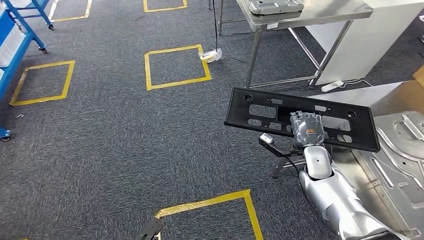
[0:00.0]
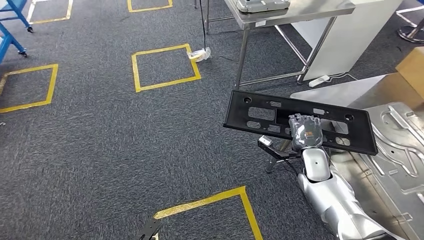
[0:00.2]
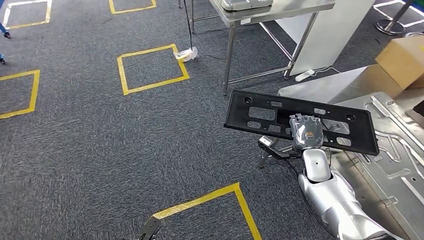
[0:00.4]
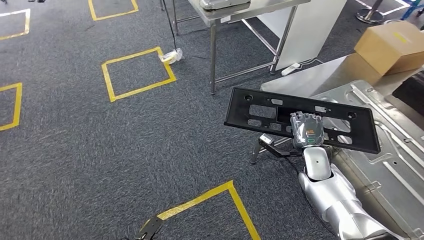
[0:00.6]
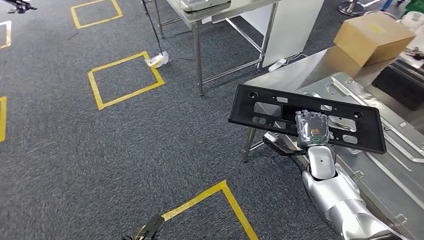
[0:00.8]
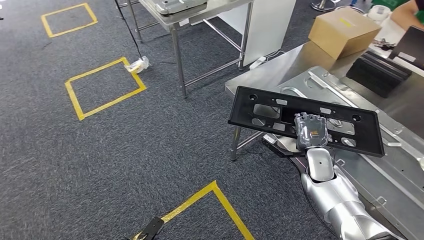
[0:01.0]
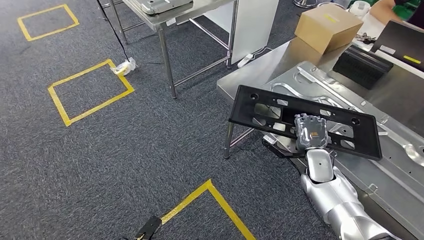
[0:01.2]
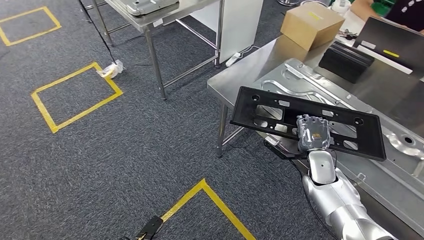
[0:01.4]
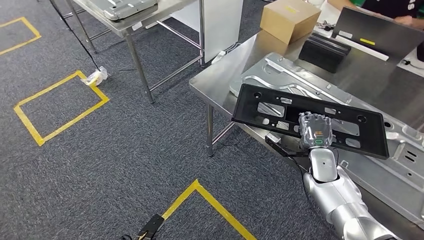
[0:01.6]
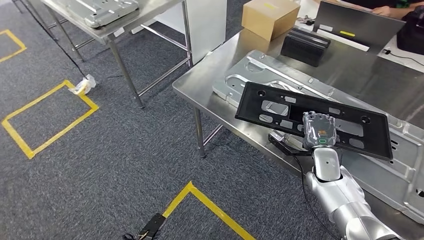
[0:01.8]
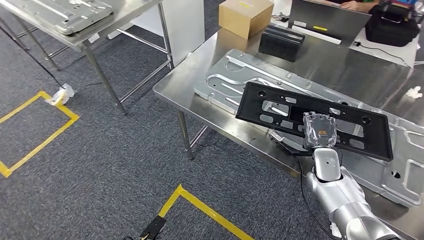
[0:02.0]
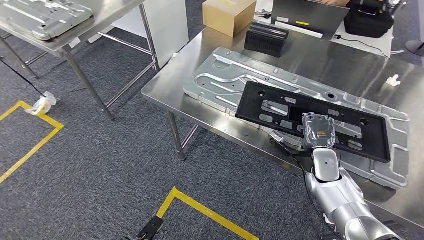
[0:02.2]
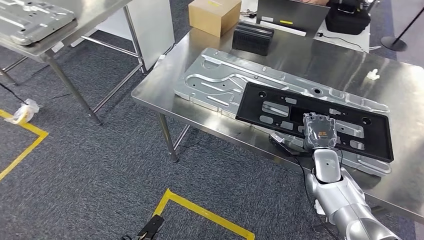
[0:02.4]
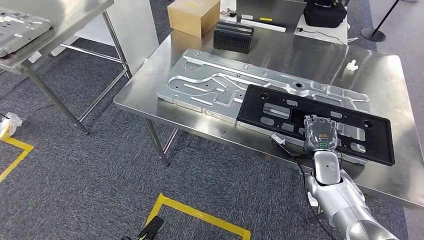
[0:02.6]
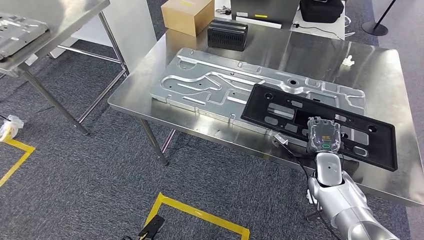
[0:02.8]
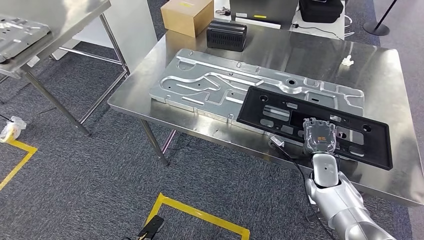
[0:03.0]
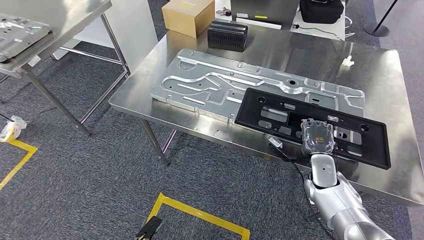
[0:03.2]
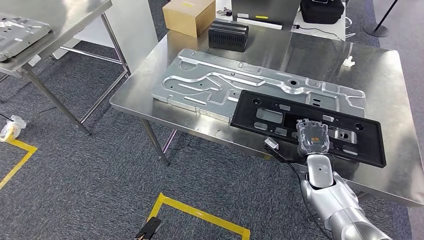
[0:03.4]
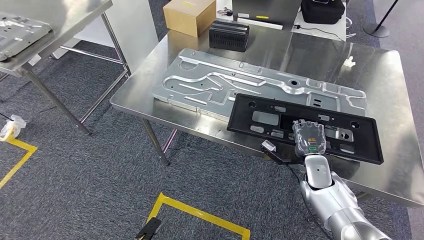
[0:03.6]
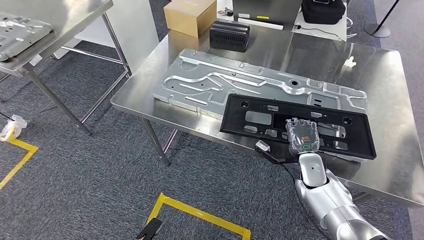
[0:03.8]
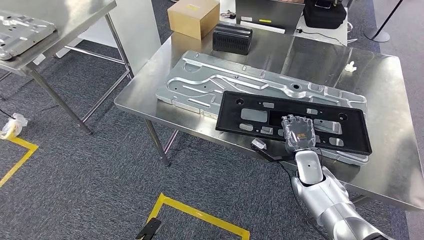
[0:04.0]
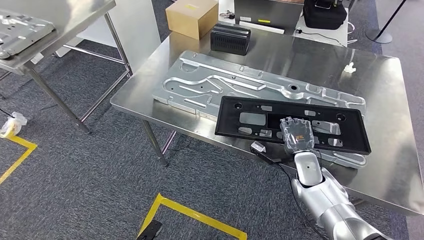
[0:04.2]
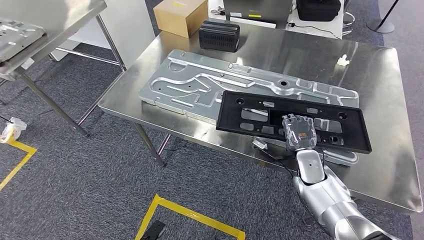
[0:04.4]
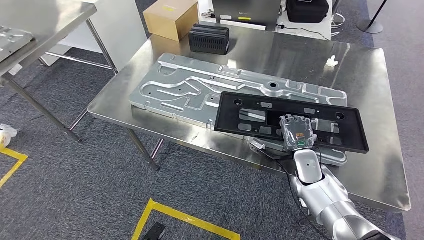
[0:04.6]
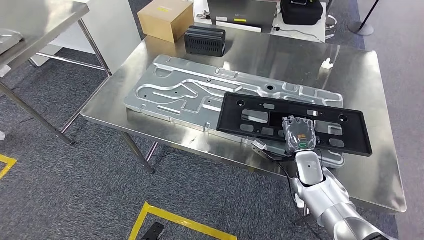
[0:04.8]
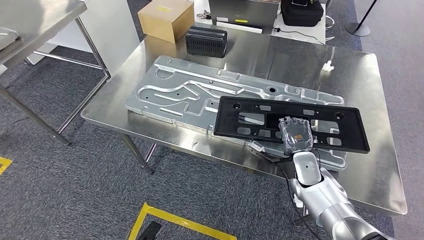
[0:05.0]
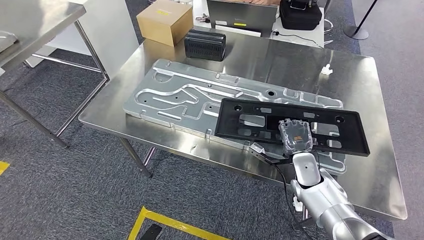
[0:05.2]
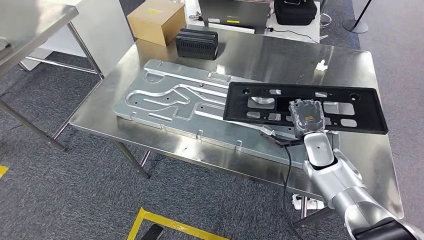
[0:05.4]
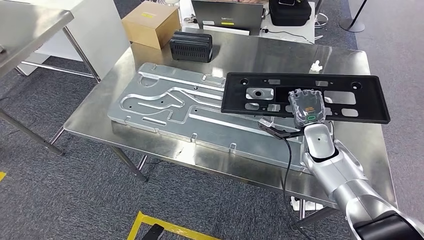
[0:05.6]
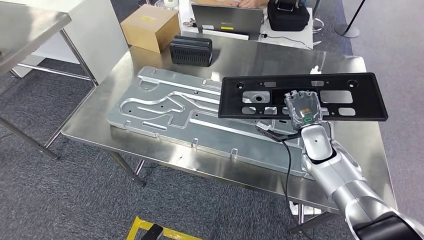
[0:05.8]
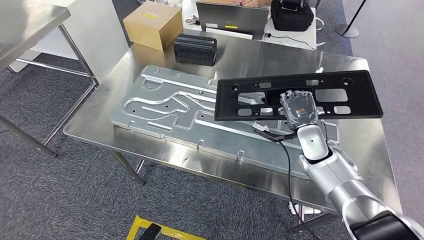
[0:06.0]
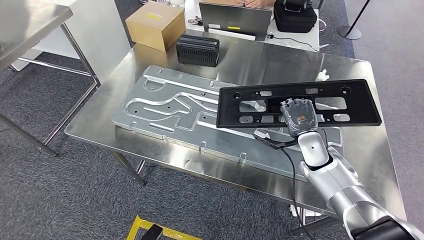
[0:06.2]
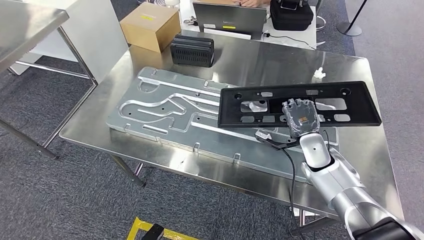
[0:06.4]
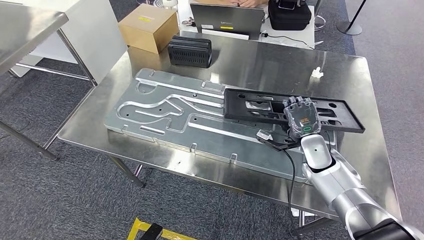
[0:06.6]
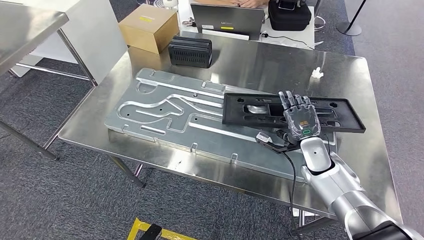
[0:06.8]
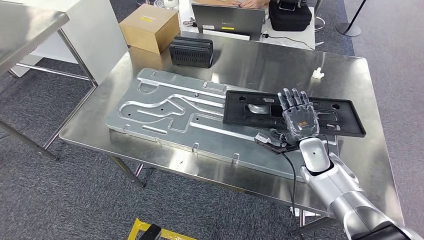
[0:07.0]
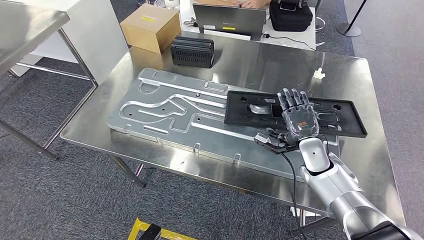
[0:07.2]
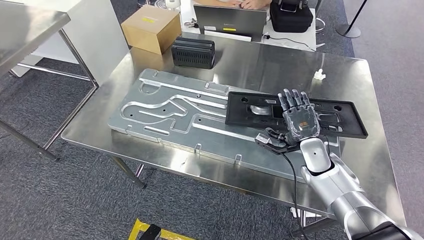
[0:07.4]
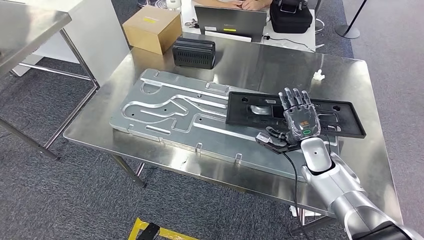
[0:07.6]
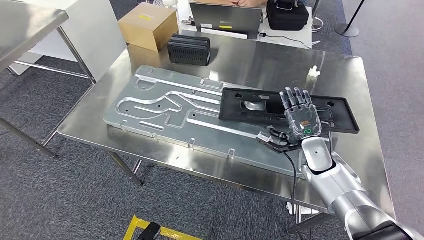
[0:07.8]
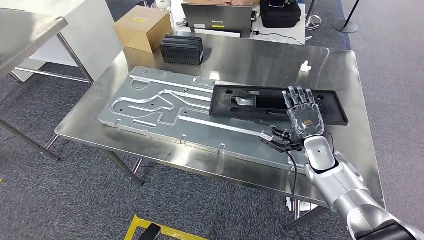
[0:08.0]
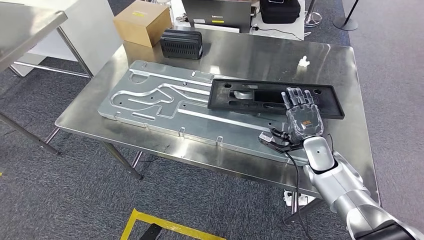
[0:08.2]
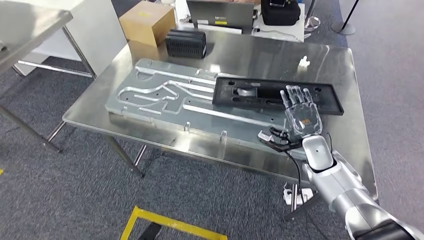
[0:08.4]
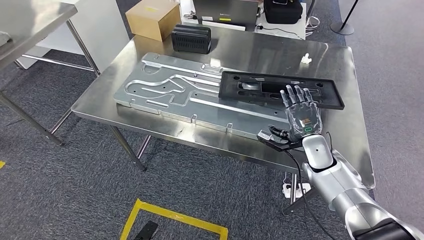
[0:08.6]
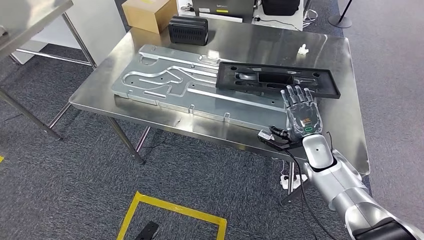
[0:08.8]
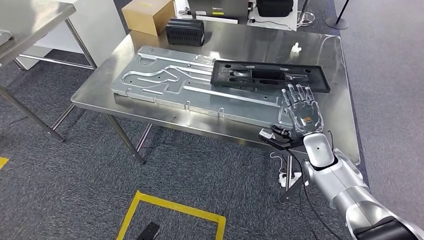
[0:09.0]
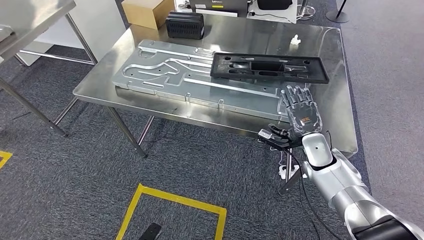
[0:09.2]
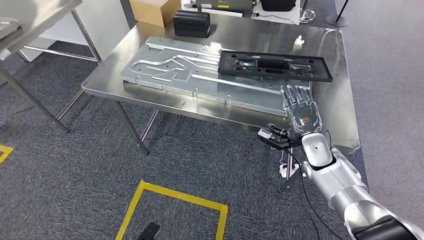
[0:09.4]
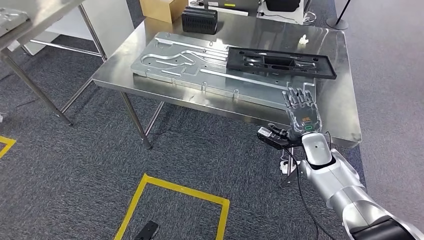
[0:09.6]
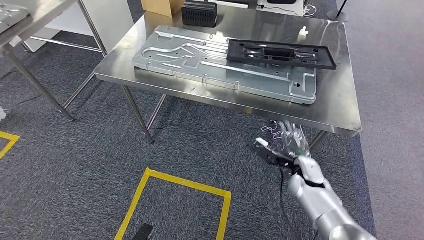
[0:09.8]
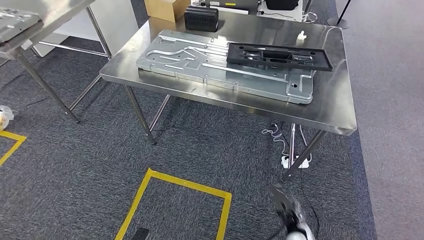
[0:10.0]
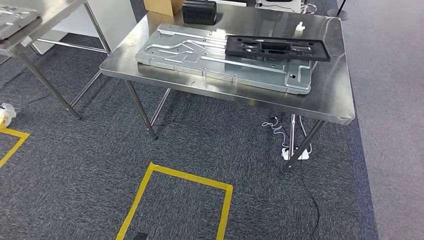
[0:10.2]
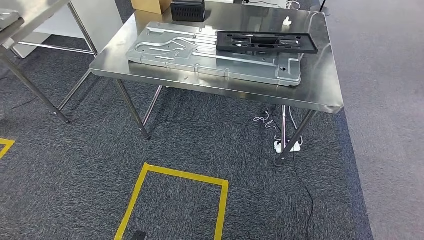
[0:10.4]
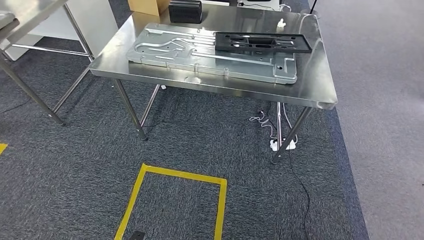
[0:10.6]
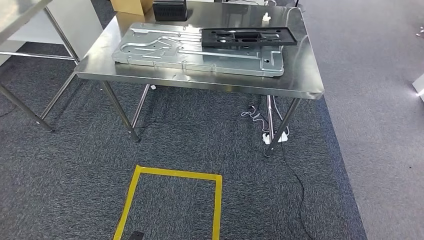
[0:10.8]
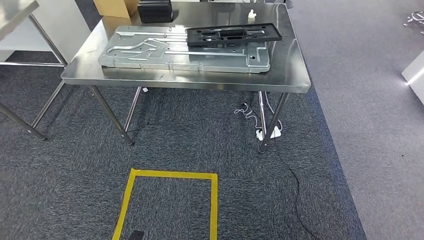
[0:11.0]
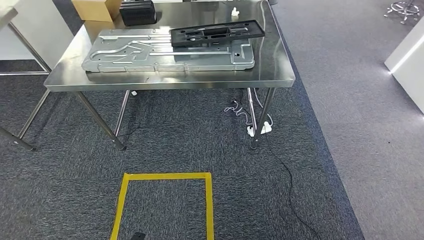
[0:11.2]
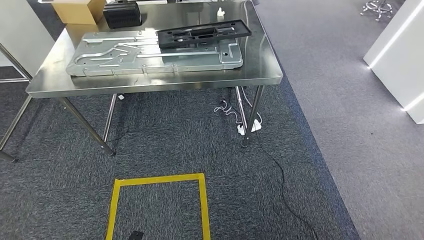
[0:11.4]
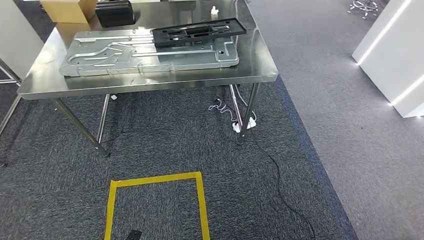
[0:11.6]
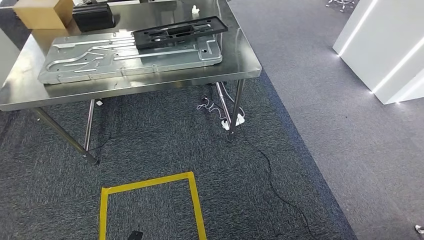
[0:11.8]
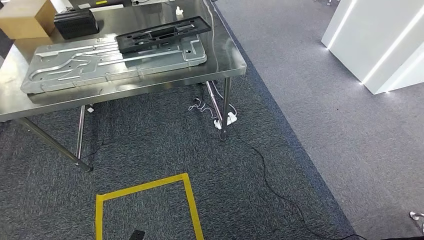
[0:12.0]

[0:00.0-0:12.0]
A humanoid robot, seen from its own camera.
Step, 0:01.8 to 0:08.4: Insert the large material into the corresponding slot on the workbench.

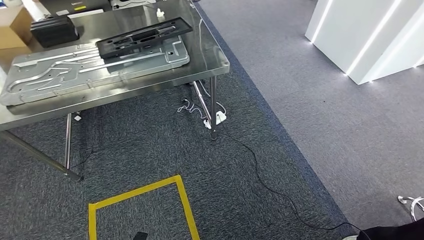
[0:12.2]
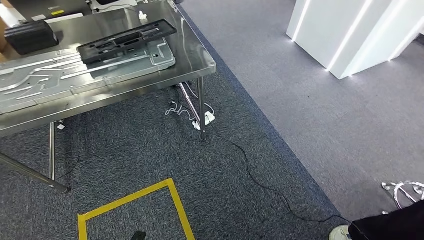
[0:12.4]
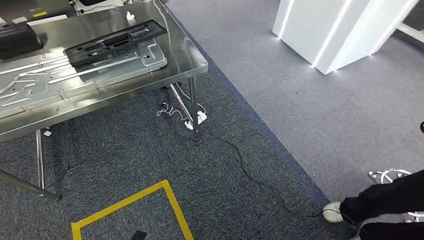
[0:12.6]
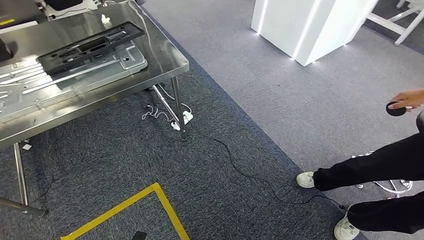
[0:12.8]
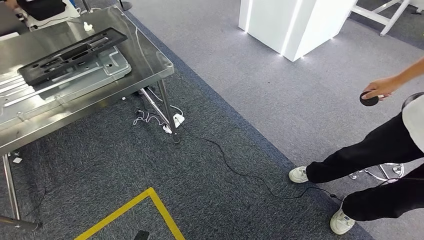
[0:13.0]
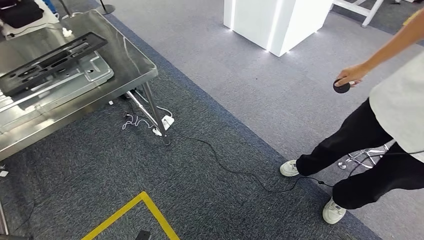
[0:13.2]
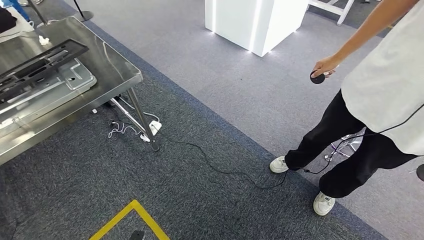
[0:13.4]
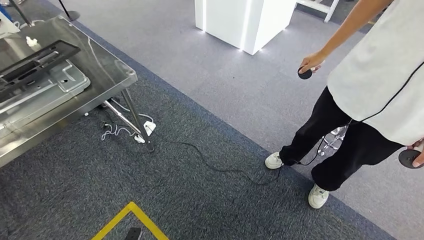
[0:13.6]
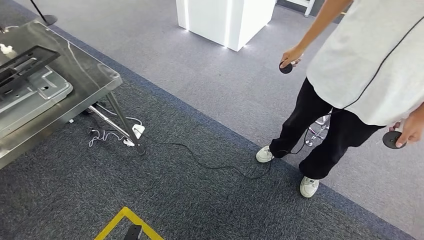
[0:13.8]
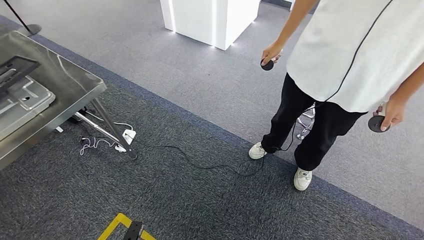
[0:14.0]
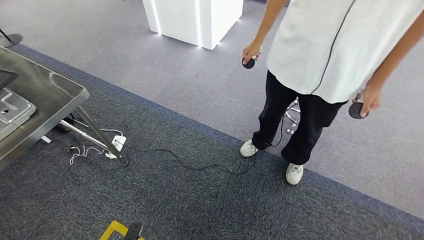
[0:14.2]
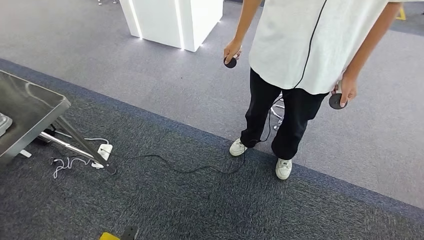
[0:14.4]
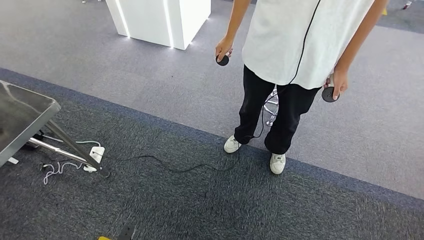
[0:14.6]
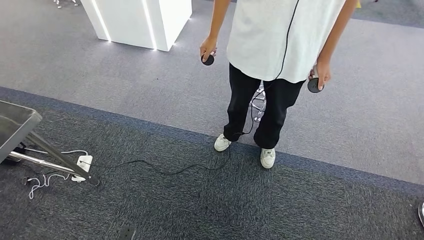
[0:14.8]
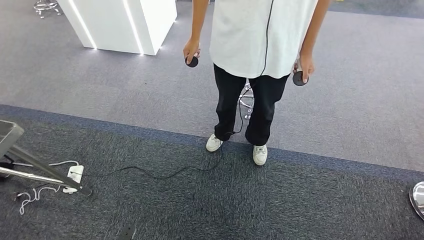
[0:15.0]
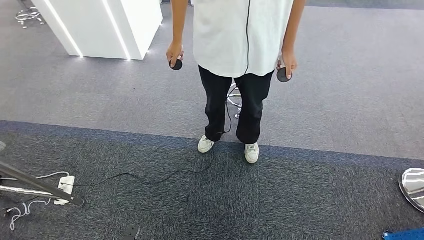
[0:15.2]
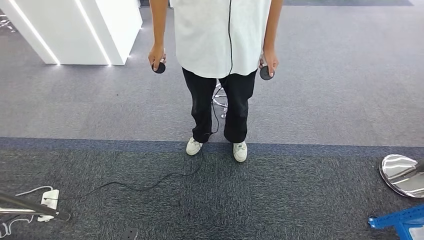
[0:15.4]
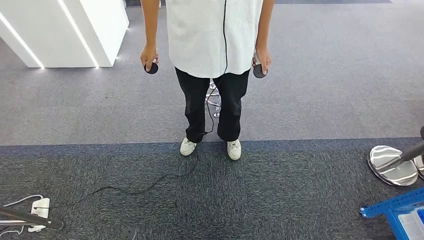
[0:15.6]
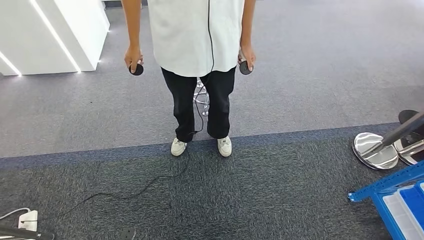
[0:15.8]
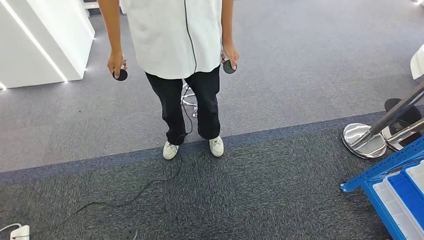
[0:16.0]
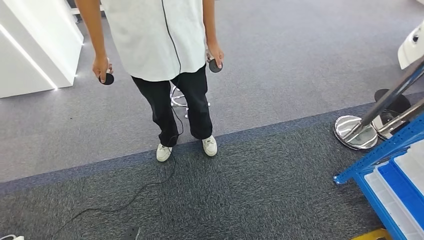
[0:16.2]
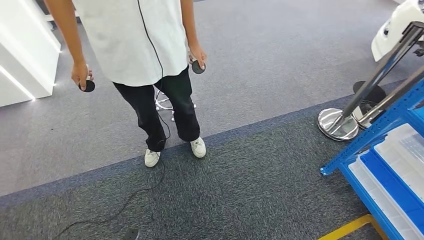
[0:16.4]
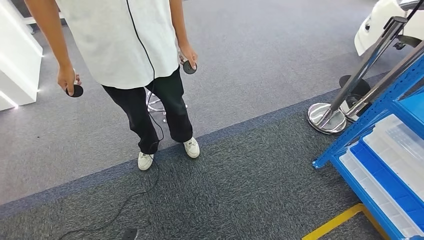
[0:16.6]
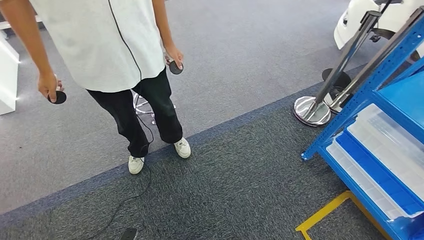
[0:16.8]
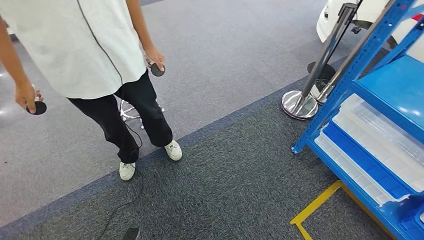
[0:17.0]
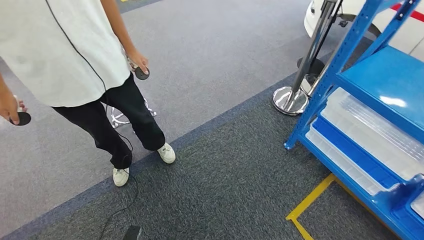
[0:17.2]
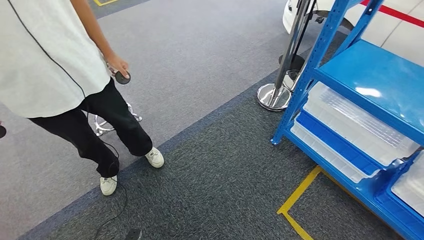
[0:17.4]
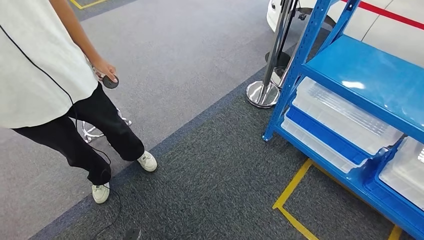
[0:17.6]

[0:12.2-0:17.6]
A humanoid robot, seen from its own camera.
Step, 0:12.2 to 0:17.4: Return to the initial position at the shelf.
